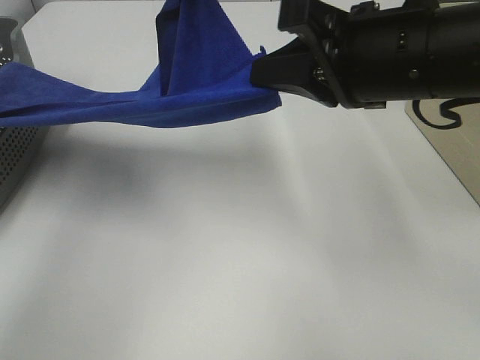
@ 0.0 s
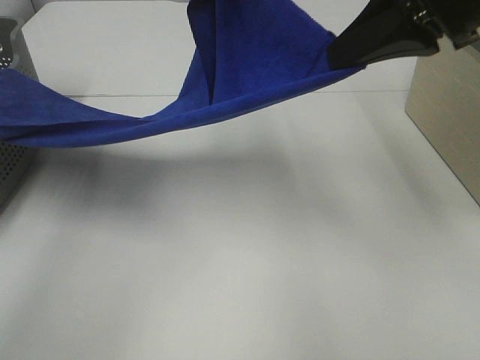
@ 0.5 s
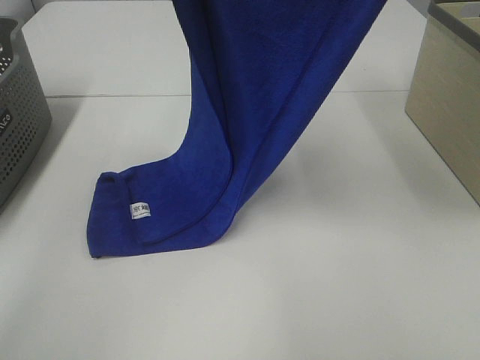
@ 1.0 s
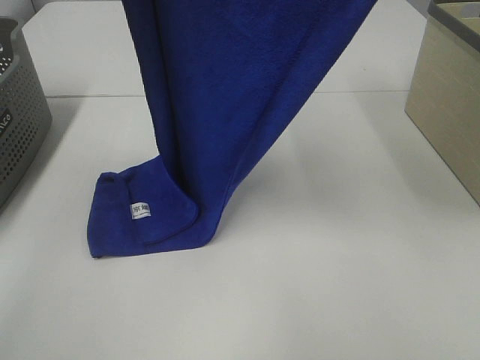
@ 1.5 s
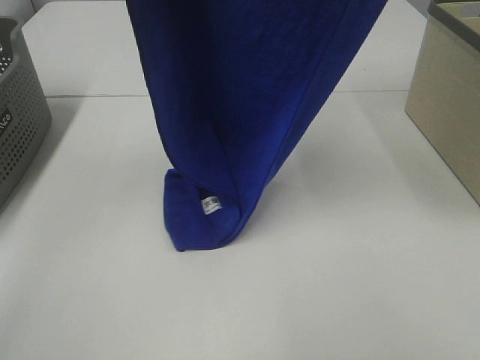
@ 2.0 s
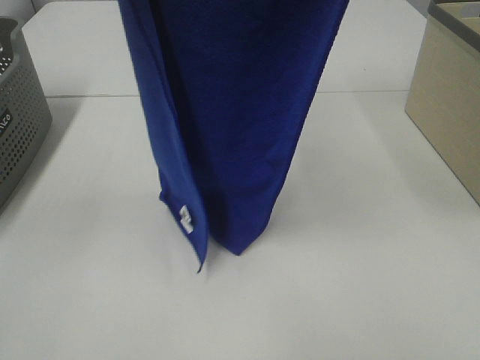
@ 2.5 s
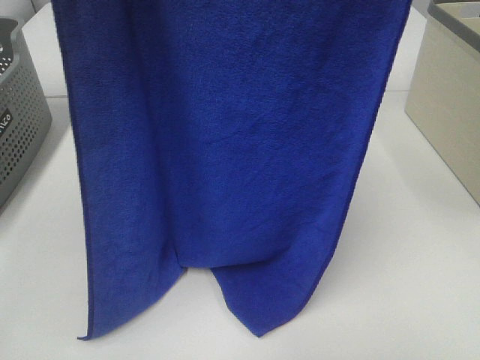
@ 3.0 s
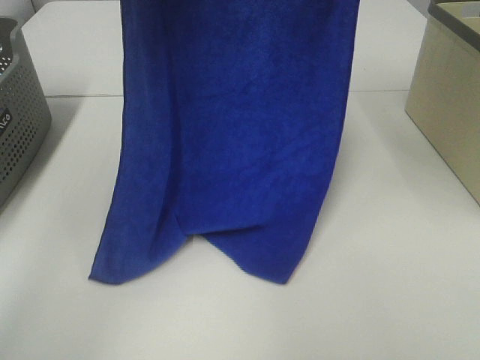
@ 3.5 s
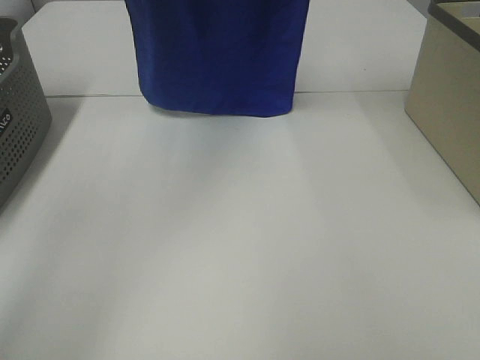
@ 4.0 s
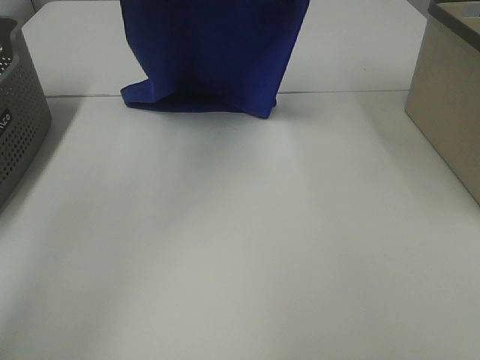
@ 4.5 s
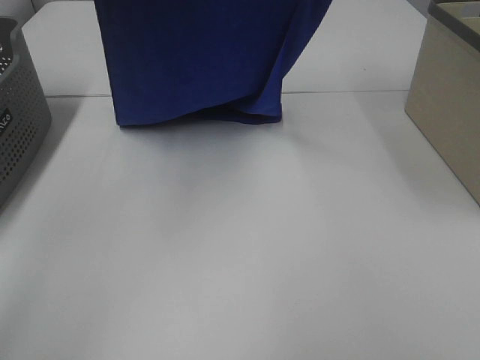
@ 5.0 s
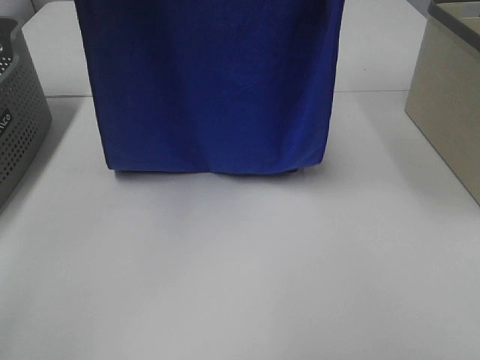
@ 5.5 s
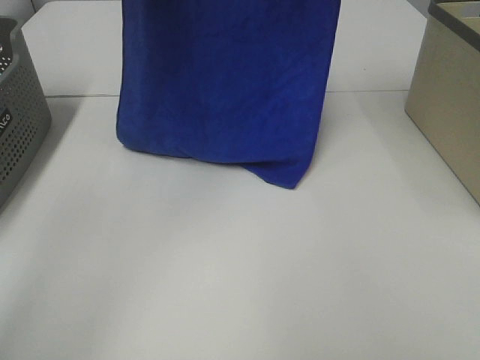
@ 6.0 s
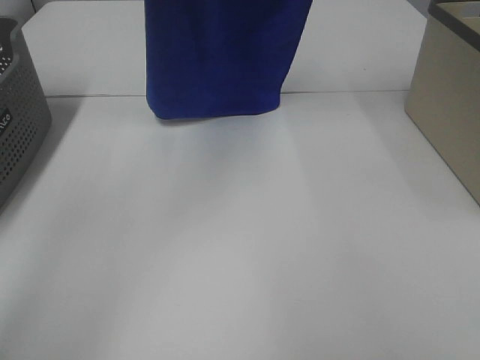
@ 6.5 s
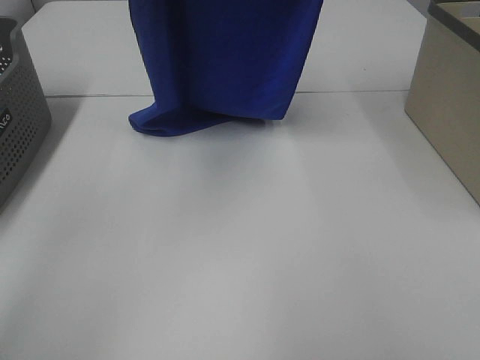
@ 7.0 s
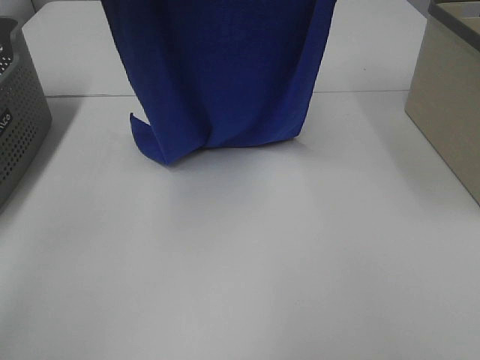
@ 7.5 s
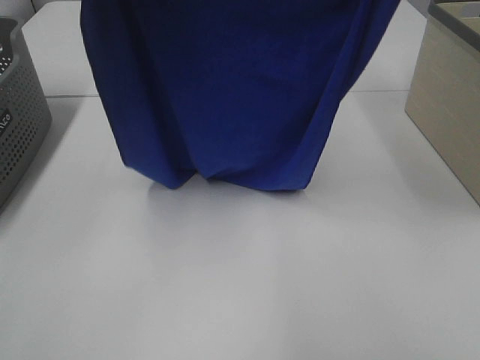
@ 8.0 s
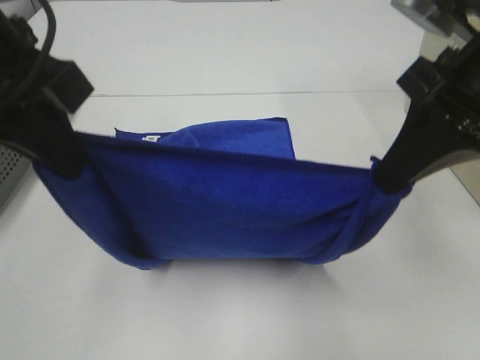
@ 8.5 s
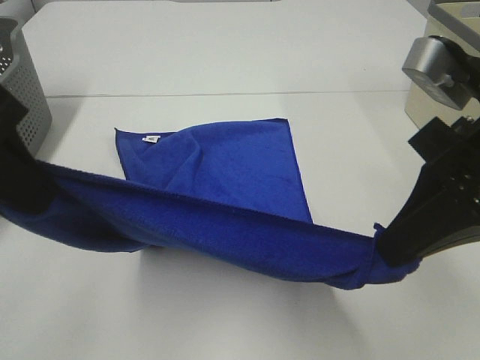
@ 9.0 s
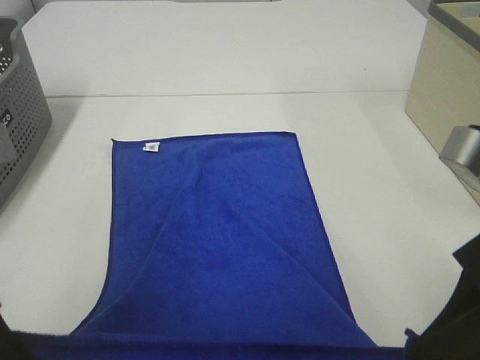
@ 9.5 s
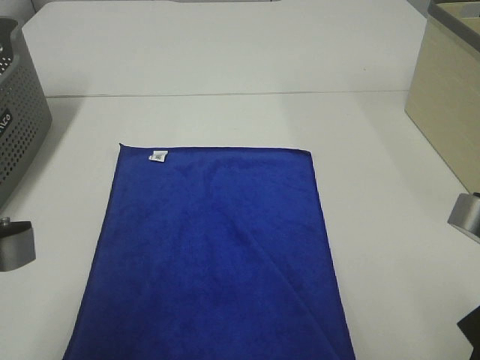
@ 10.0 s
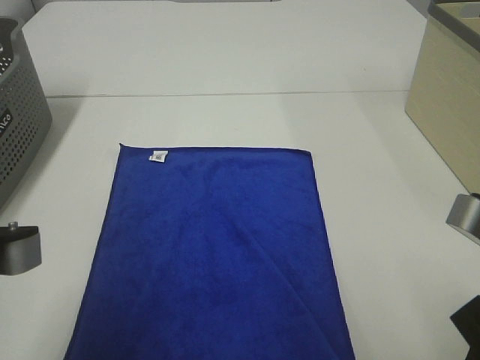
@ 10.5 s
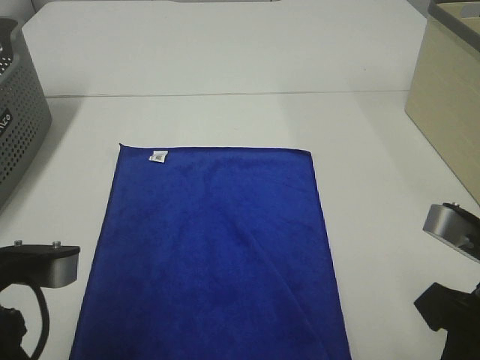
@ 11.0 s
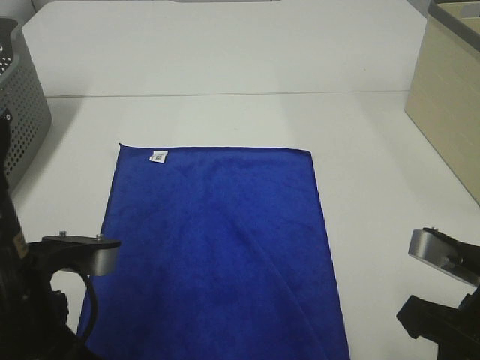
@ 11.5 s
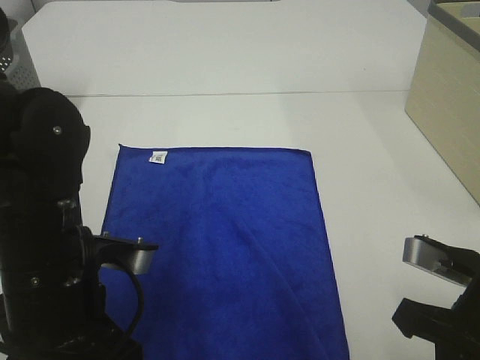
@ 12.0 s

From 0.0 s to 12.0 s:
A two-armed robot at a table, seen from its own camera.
Task of the whole recording: Remove the towel and place it.
Step, from 0.0 s to 6.0 s: Left hand: spread the blue towel flat on the table.
Step, from 0.0 s to 6.0 s: Right hand: spread the blue towel flat on the table.
From 0.0 s to 2.0 s: The right gripper shifts some 25 cm upward. Meanwhile the left gripper goes some 15 cm upward and backward.
From 2.0 s to 4.0 s: Both grippers travel together forward, approximately 10 cm.
From 4.0 s to 6.0 s: The left gripper reaches some 10 cm backward, then returns. The right gripper reaches about 10 cm backward, then returns.
From 6.0 s to 8.0 s: Both grippers move backward and downward, some 15 cm.
From 8.0 s to 10.0 s: Both grippers move downward and backward, about 25 cm.
From 10.0 s to 12.0 s: The left gripper shifts roughly 10 cm downward and forward, while the right gripper is displaced downward by approximately 5 cm.

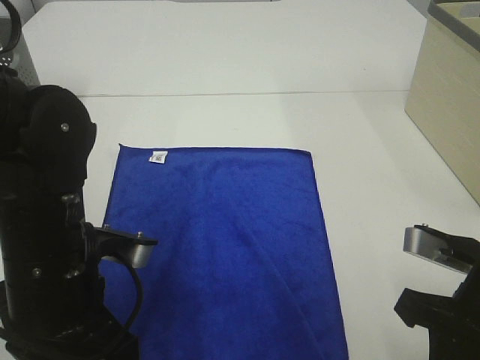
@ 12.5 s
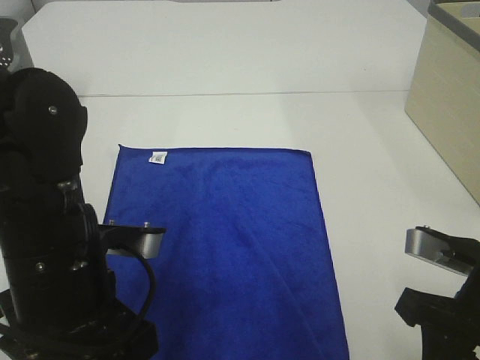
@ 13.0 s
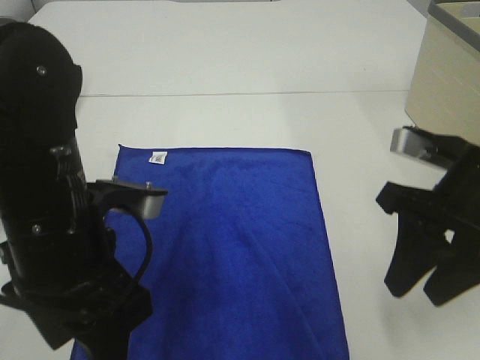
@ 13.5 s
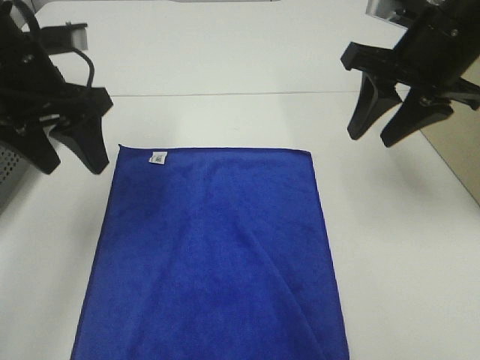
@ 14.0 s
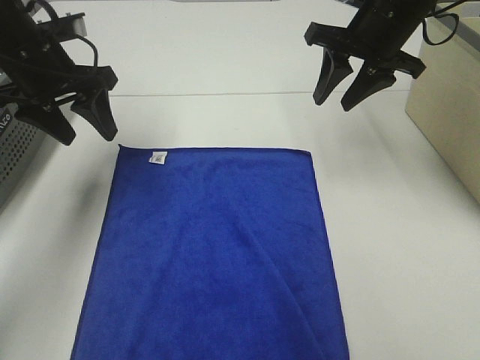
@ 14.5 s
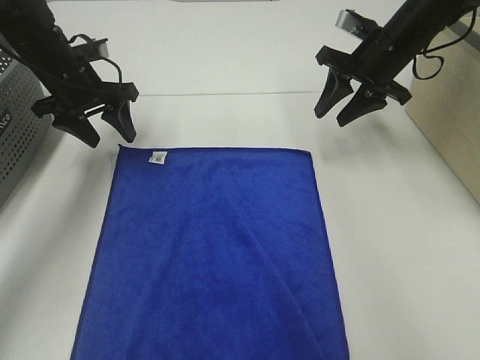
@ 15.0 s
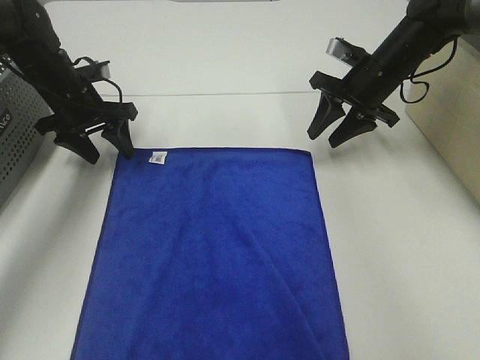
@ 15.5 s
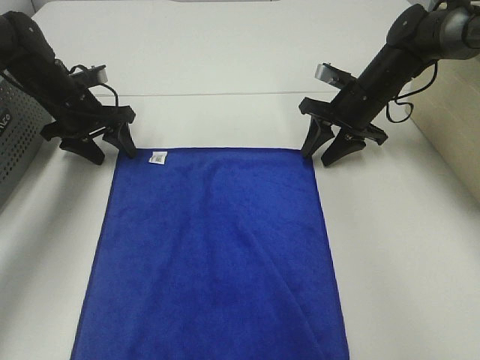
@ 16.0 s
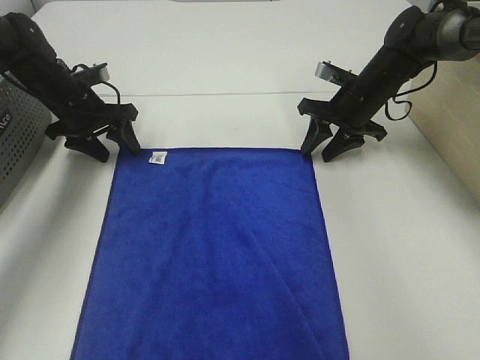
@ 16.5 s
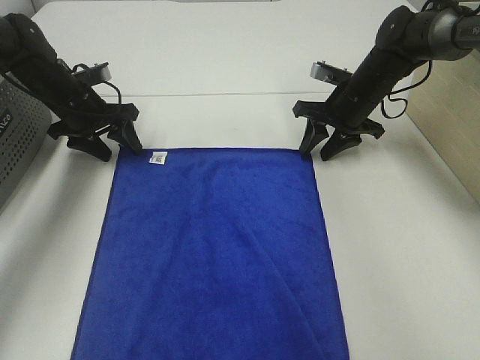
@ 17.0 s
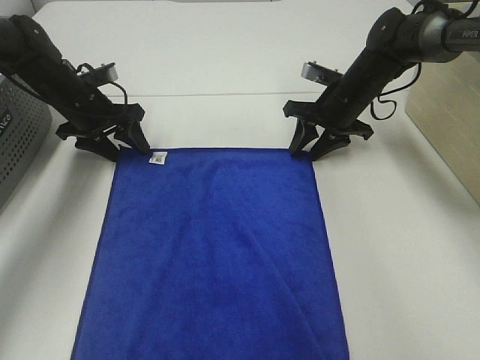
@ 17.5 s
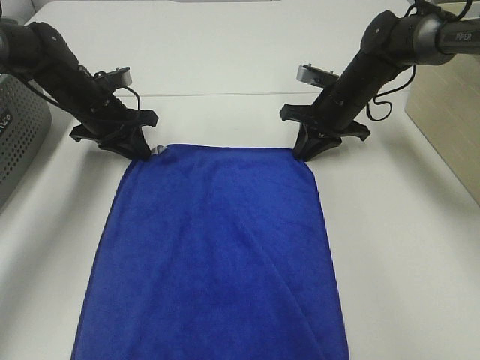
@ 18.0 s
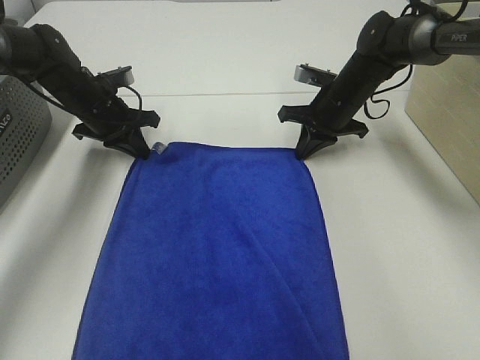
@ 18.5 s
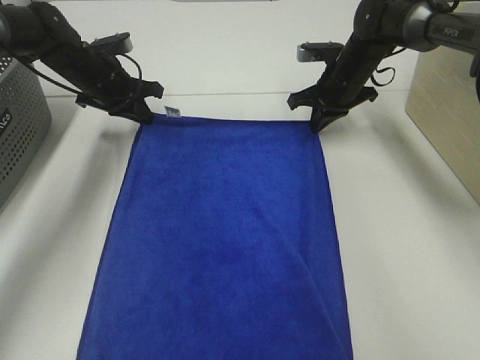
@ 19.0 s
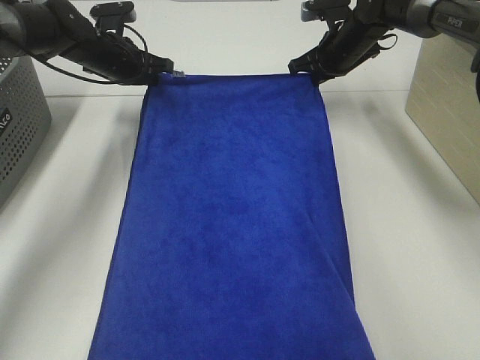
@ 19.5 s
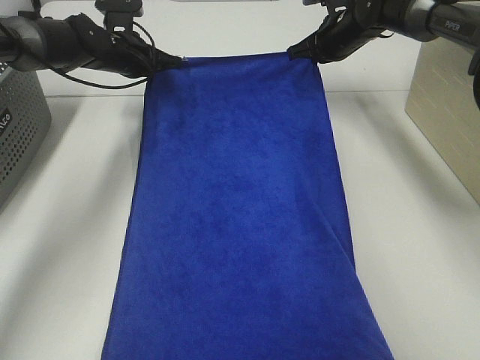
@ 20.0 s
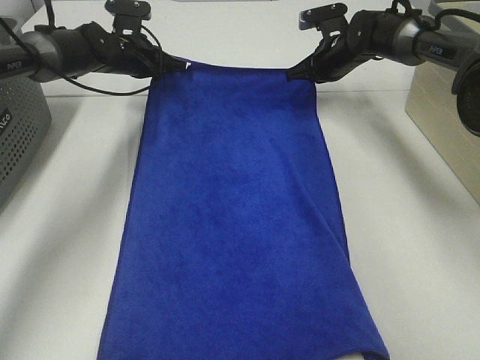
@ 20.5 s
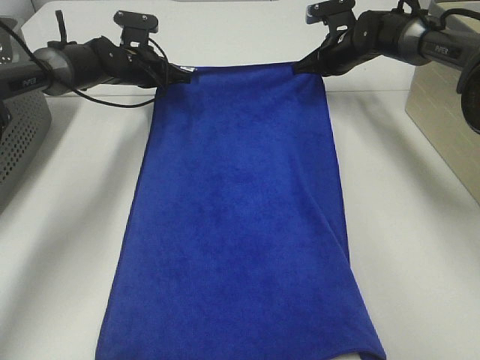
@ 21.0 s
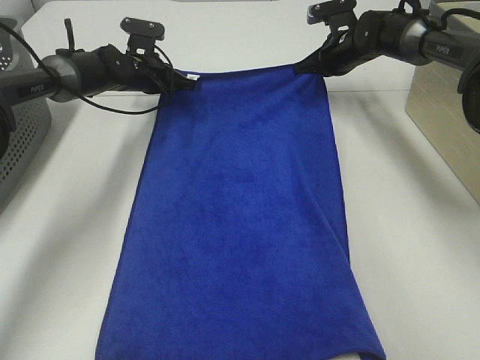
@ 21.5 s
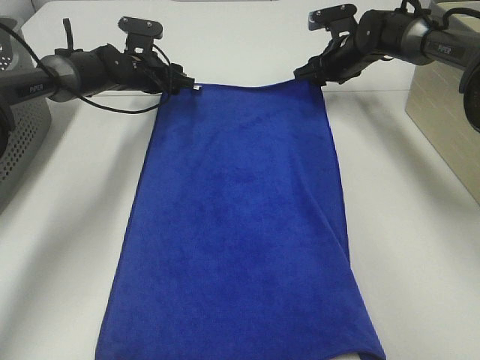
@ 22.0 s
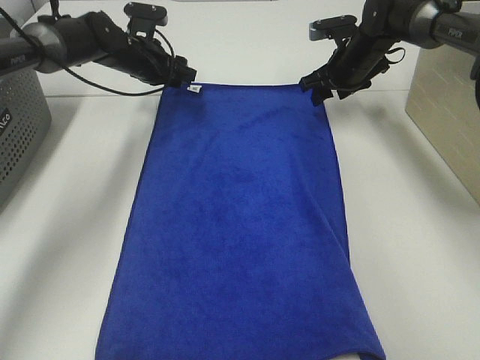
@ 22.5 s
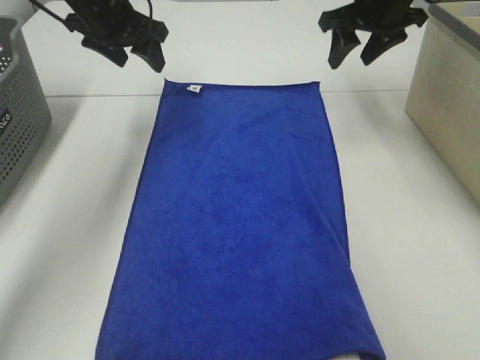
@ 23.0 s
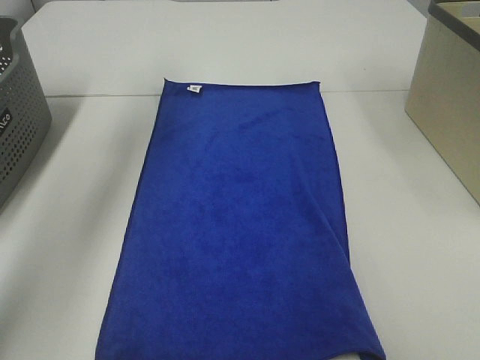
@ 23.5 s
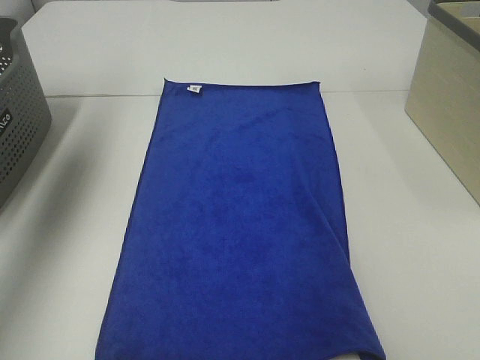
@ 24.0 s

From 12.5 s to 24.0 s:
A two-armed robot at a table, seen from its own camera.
Task of the whole recording: Remove the towel and place it.
From 12.5 s to 14.5 s: The right gripper goes approximately 30 cm forward; the left gripper goes roughly 25 cm forward and to the left, and opens its fingers.
From 14.5 s to 16.5 s: The left gripper goes about 15 cm downward and forward. The right gripper moves downward, some 15 cm.
From 16.5 s to 18.5 s: The left gripper closes its fingers; the right gripper closes its fingers.
From 18.5 s to 20.0 s: The left gripper goes some 5 cm forward, while the right gripper goes roughly 10 cm forward and upward.
From 20.0 s to 22.0 s: The left gripper shifts by some 5 cm, and opens up. The right gripper opens.
From 22.0 s to 24.0 s: The right gripper is displaced upward and backward by about 40 cm. The left gripper goes roughly 40 cm upward, backward and to the left.

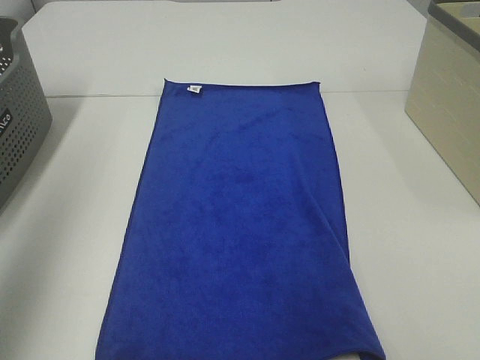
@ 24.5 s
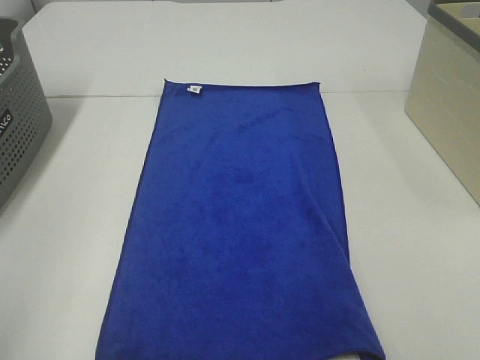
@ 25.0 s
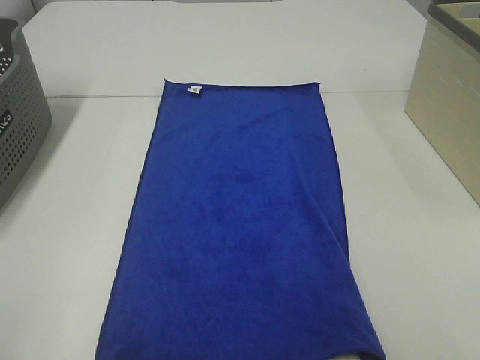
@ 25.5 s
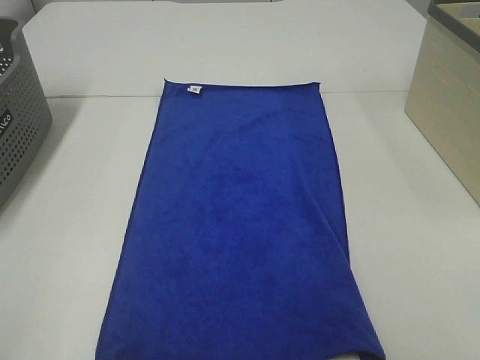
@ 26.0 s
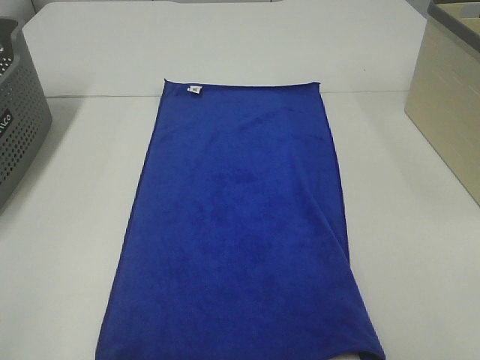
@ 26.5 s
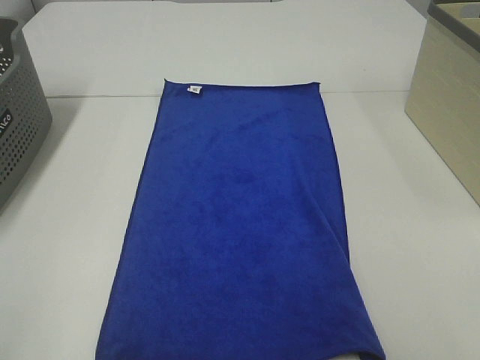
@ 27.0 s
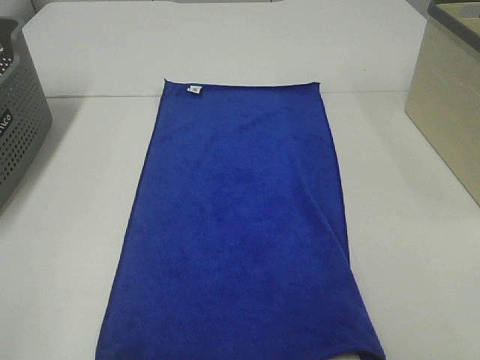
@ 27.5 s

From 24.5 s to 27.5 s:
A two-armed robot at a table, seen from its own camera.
Task of the whole recording: Remove the towel and place it.
From 24.5 s to 26.0 s: The left gripper moves backward and downward, about 20 cm.
From 26.0 s to 27.5 s: Both grippers stay about where they are.
